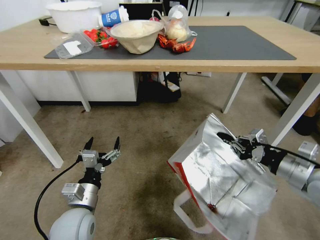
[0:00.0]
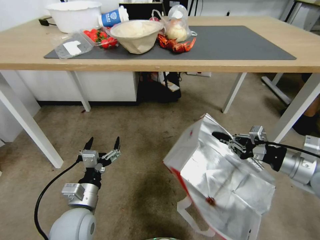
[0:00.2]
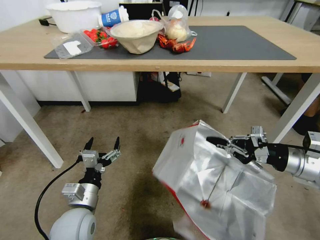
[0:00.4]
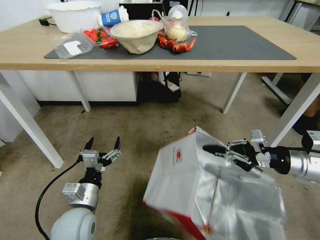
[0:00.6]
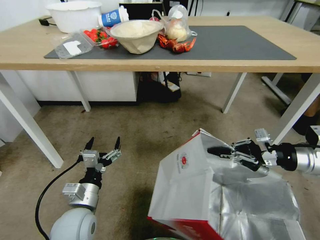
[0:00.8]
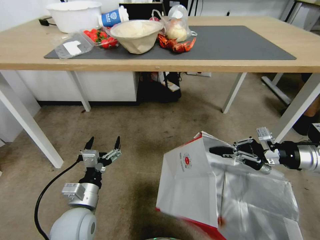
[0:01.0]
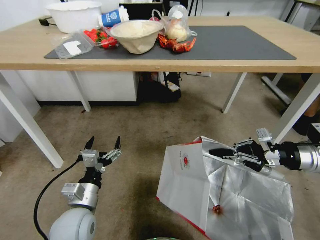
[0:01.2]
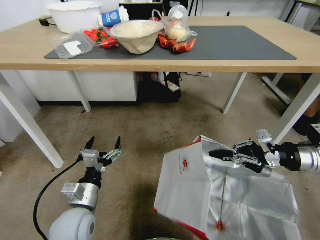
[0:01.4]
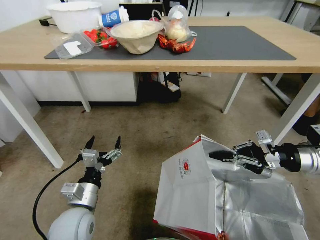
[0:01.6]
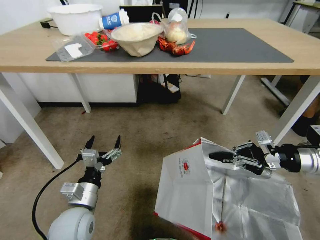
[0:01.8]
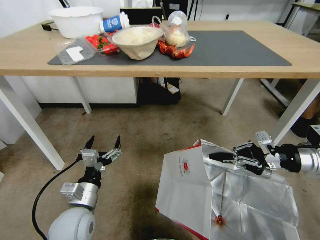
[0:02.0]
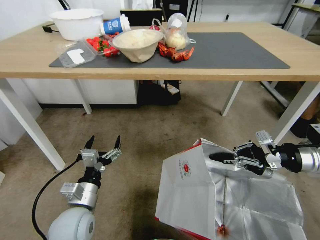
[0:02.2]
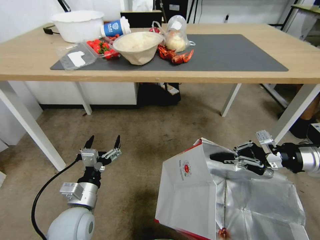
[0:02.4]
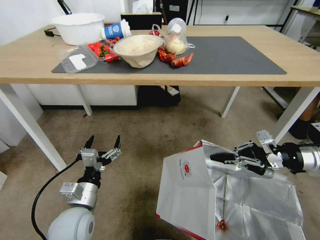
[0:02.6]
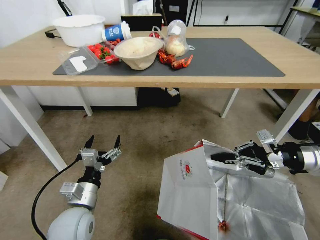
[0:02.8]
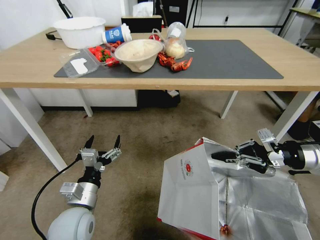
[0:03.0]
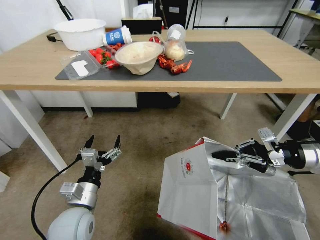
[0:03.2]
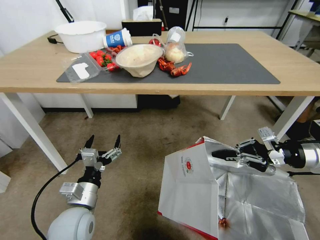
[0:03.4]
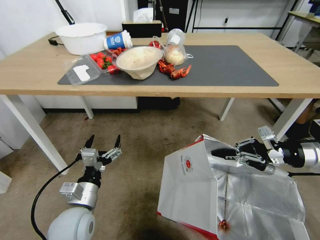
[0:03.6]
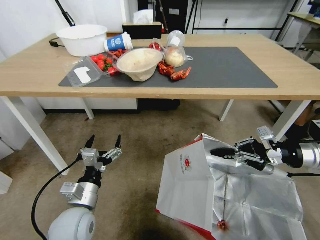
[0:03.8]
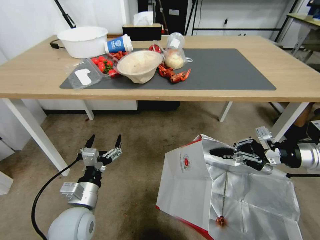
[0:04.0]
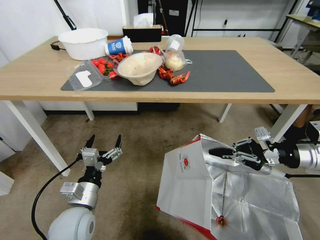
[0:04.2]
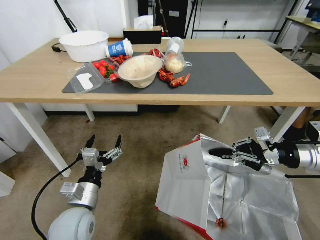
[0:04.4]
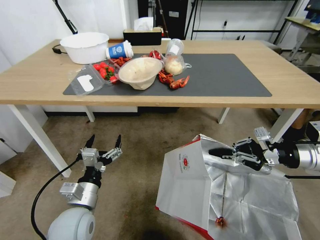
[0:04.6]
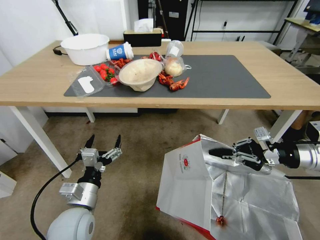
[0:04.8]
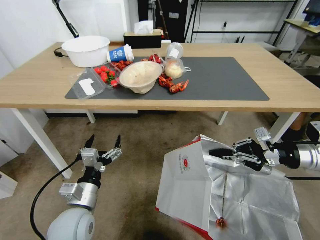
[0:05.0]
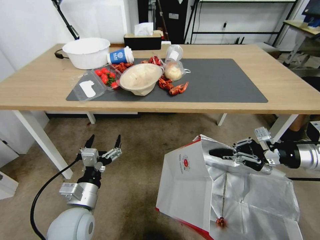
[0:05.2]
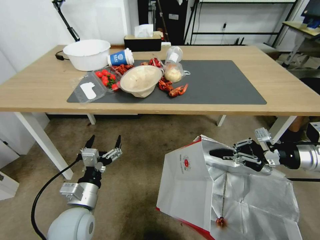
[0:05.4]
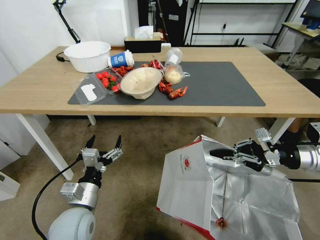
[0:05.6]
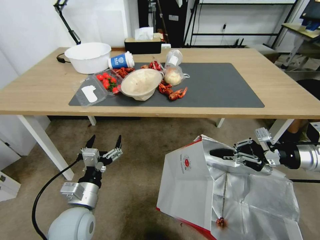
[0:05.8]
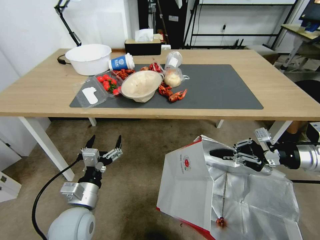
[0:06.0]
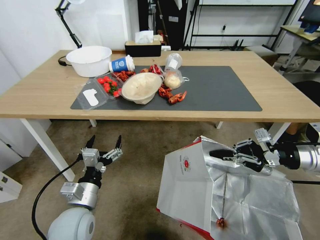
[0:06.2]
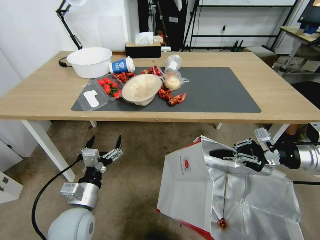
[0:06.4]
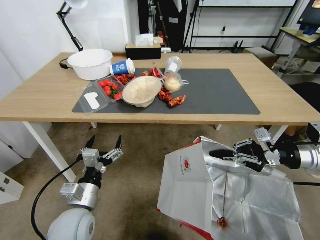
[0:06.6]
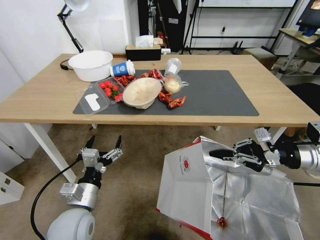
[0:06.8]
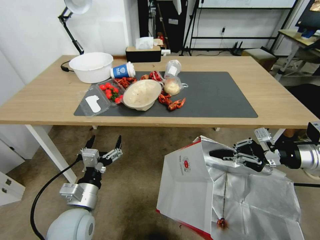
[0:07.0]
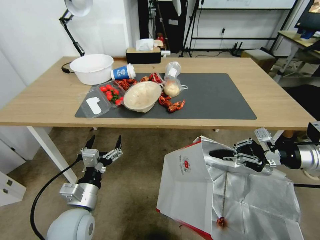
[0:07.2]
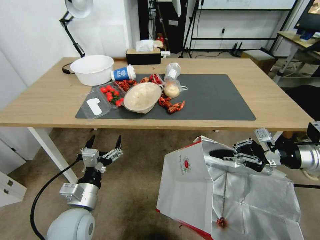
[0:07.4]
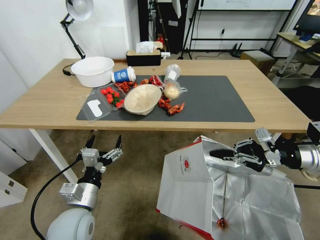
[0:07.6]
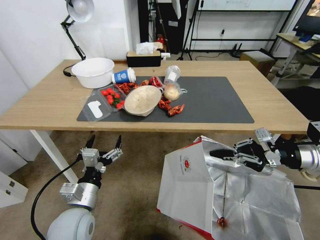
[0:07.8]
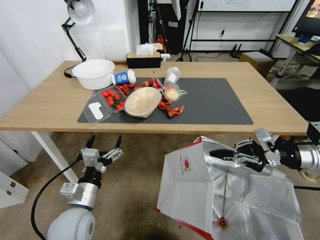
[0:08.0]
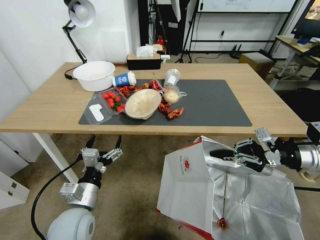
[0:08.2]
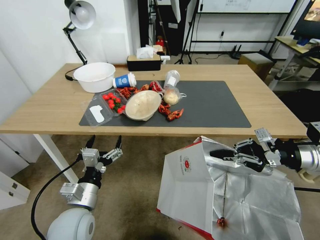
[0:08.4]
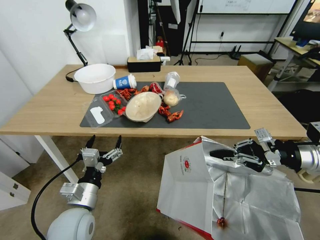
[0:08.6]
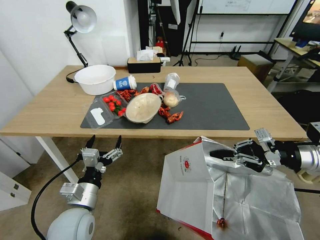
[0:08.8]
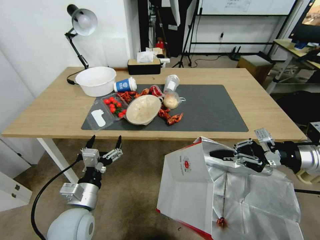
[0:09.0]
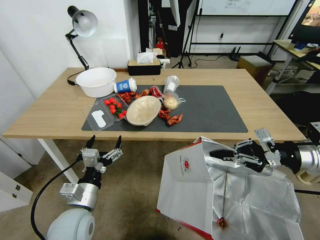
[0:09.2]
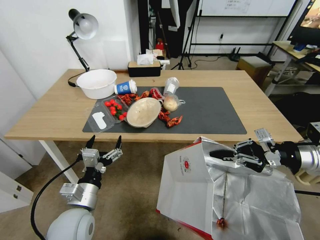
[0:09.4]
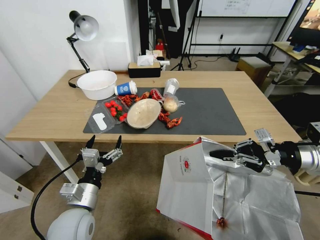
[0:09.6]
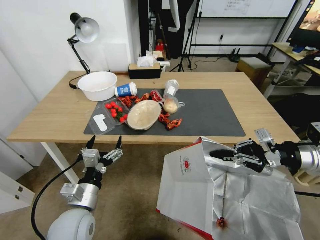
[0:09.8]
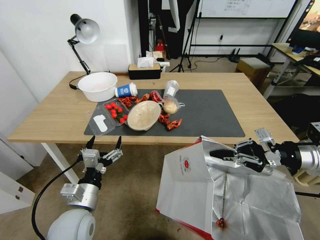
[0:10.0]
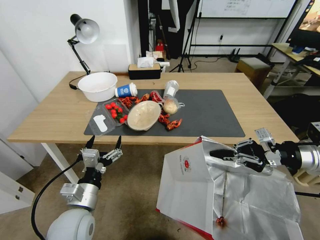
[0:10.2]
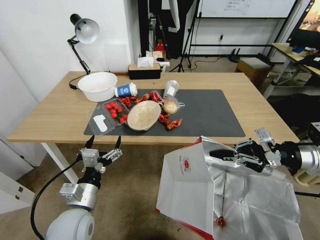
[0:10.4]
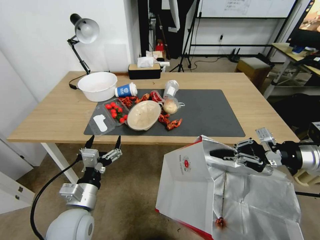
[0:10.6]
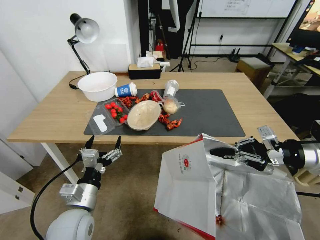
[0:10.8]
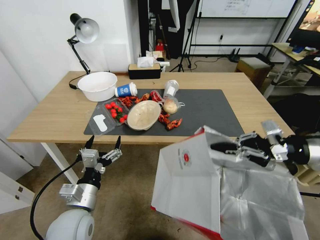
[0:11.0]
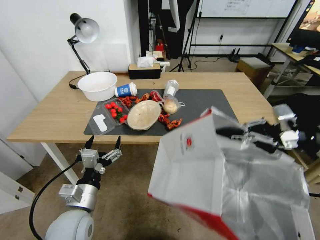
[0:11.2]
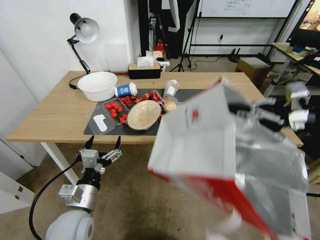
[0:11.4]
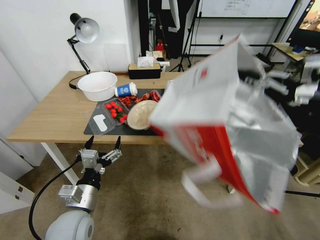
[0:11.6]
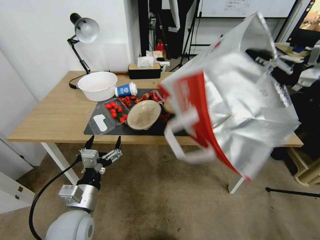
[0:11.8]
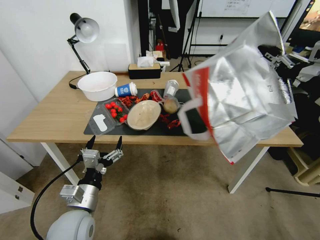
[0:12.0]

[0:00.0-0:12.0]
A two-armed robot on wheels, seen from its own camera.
Task of the whole recording: Pick up the food delivery bag from the floor and place it on the table.
0:00.0 to 0:01.6: The right gripper goes about 5 cm forward.
0:09.0 to 0:10.4: Both grippers stay about where they are.
0:10.4 to 0:12.0: The right gripper goes roughly 10 cm upward.

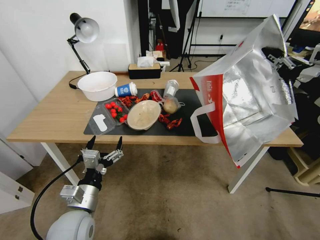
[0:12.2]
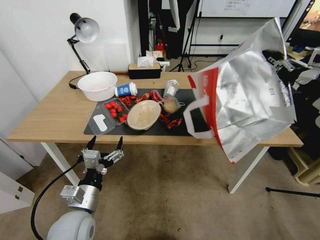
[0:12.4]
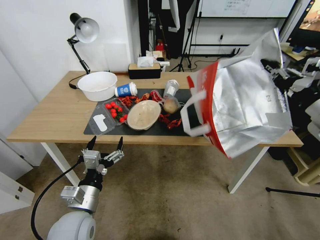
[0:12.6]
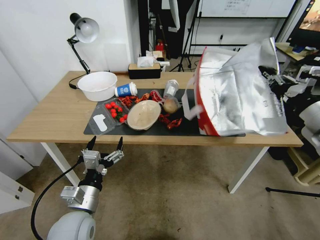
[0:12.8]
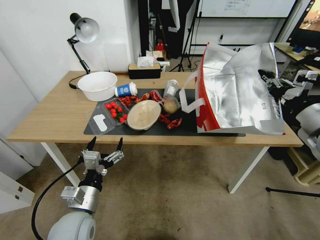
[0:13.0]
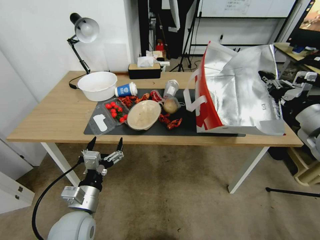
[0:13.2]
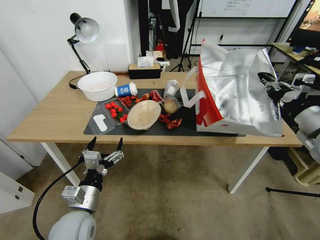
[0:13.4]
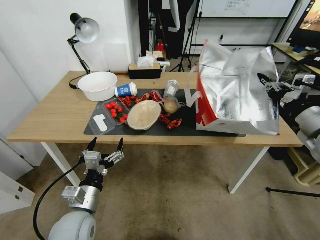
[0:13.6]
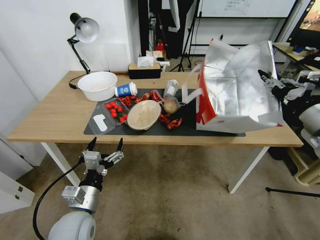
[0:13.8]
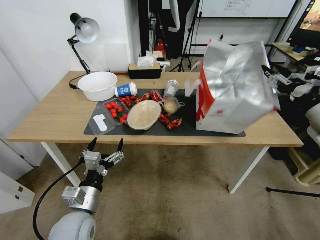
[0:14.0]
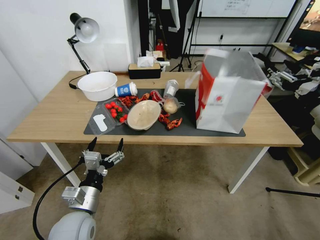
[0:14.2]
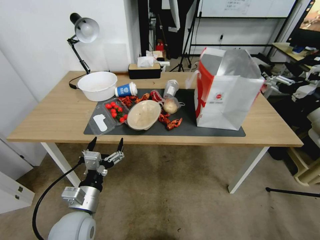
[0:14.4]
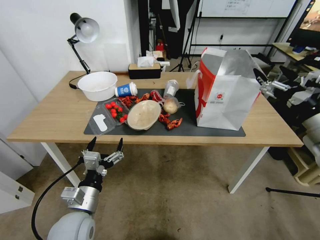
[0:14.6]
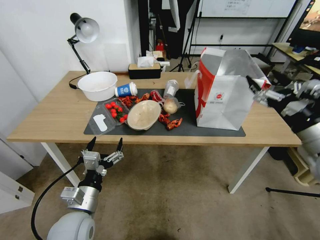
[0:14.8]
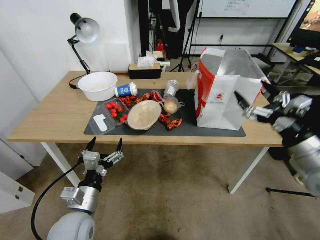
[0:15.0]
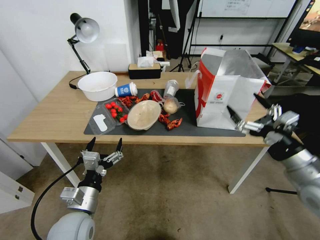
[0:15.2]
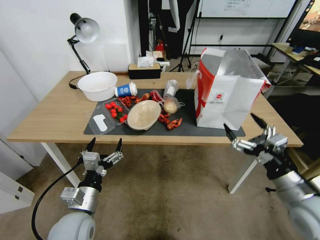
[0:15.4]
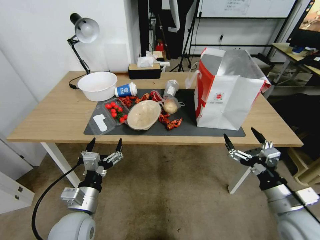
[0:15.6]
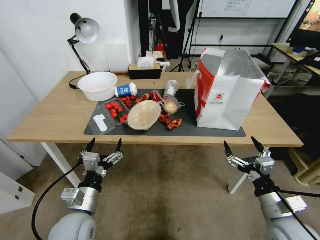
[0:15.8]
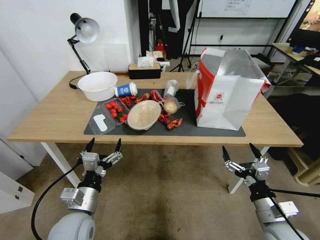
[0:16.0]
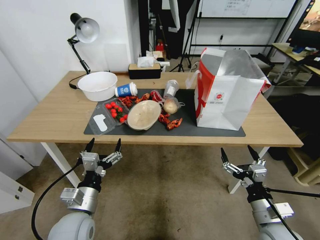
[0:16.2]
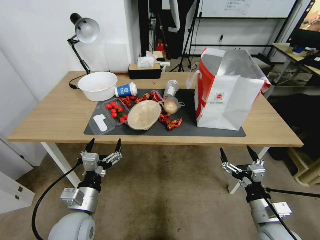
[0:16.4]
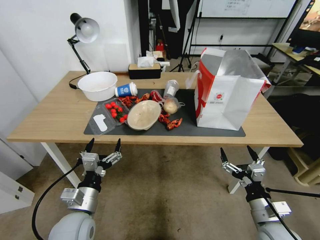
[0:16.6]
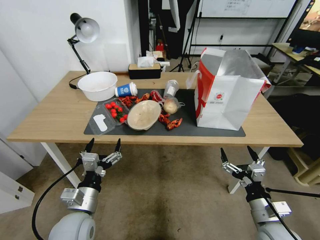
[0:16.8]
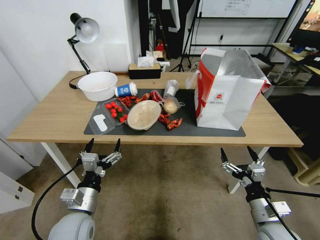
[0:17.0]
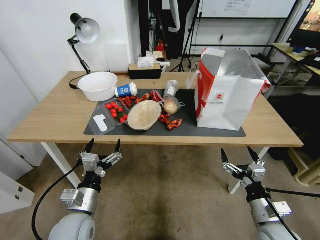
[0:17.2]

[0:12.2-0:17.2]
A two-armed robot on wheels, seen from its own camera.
Task of the whole recording: Pick up the food delivery bag from the floor and place it on the table.
0:12.2 to 0:13.8: The right gripper moves downward, approximately 5 cm.
0:13.8 to 0:15.6: The right gripper moves downward, backward and to the left, approximately 20 cm, and opens its fingers.
0:15.6 to 0:17.2: The right gripper shifts some 10 cm downward.

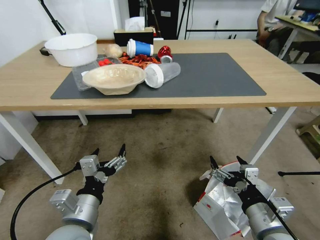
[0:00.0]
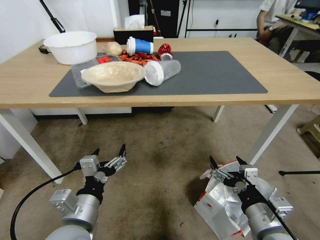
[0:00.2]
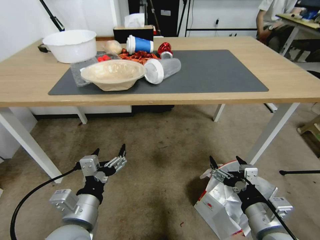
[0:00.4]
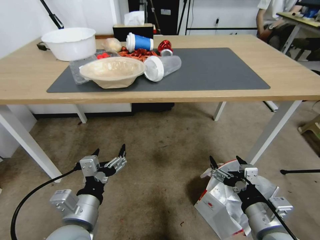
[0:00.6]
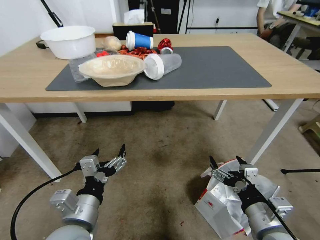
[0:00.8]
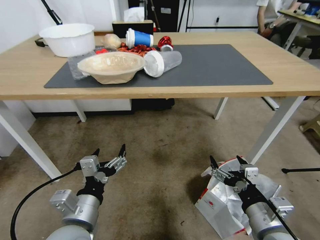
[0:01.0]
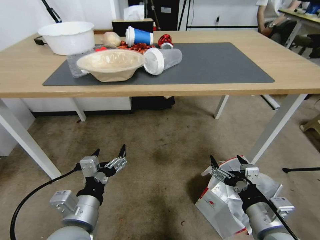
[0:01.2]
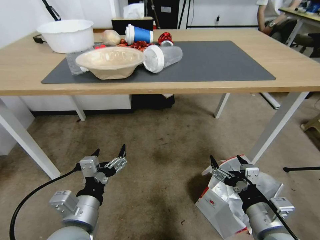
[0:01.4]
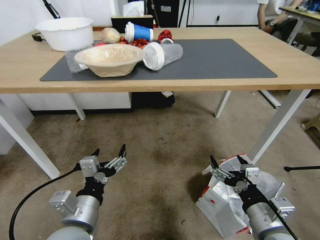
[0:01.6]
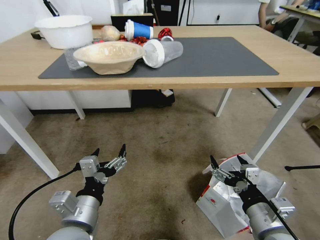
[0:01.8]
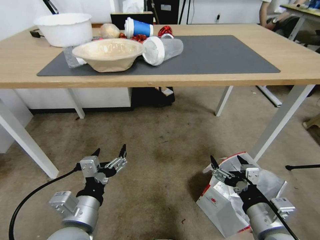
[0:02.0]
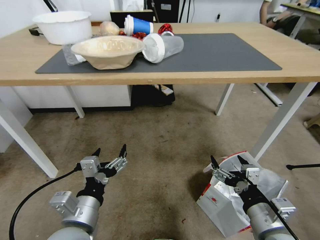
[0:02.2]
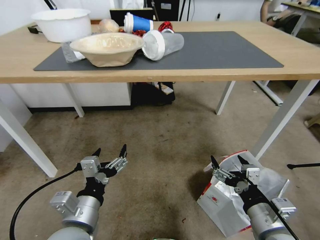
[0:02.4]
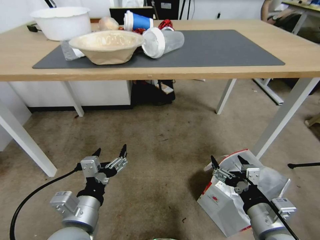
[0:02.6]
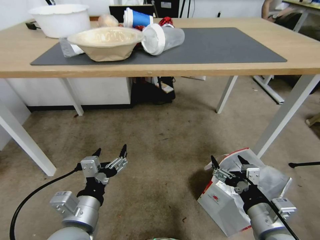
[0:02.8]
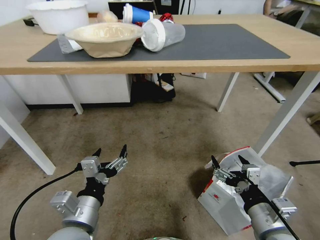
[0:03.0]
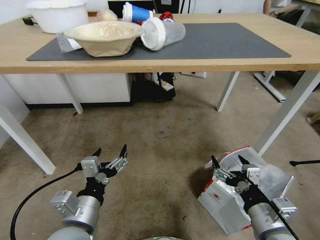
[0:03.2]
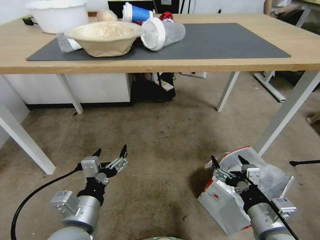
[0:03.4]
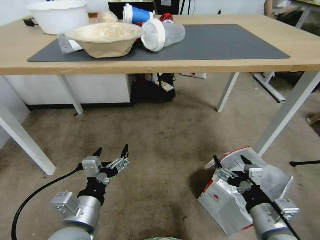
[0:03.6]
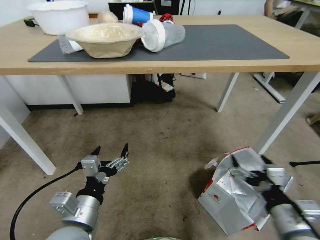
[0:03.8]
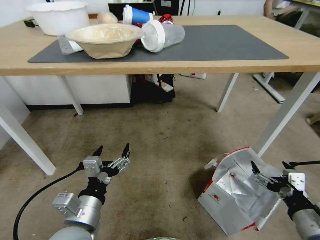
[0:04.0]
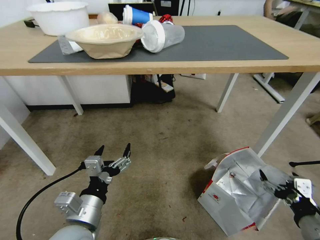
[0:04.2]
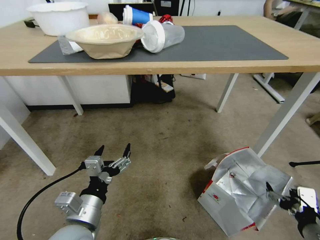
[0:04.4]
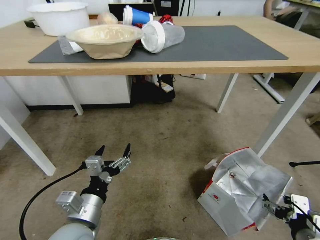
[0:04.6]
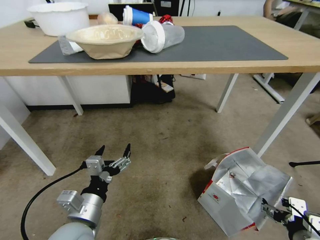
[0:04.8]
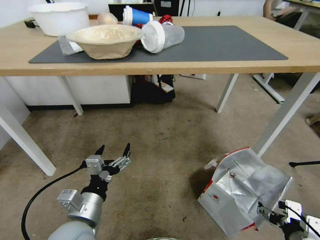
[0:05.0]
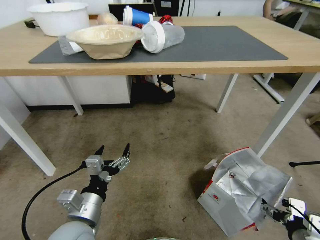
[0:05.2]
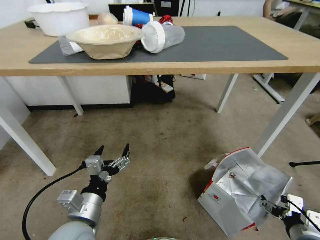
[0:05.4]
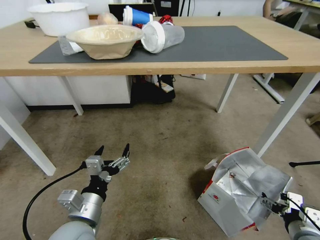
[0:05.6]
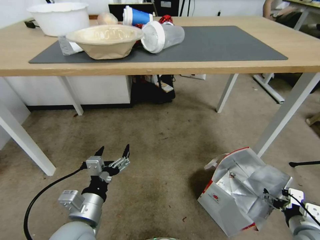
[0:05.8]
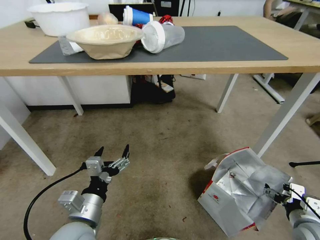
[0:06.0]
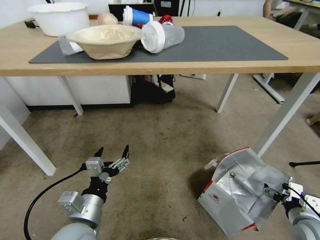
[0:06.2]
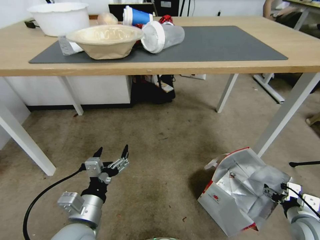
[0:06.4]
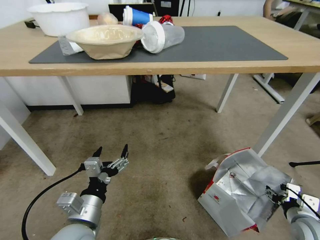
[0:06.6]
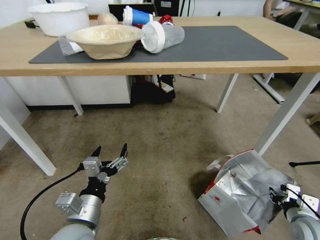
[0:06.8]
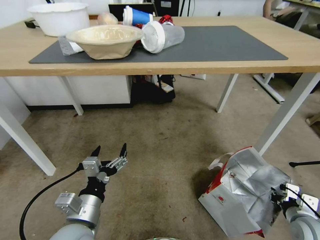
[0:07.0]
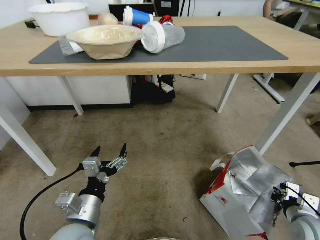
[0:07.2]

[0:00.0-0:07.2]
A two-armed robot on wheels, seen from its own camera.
Task of the whole recording: Pick up the food delivery bag from the floor and place it on the table.
0:02.8 to 0:04.4: The right gripper heads to the right, covering roughly 10 cm.
0:04.4 to 0:05.8: The right gripper moves downward, roughly 5 cm.
0:05.8 to 0:07.2: The right gripper moves about 5 cm, and closes its fingers.
